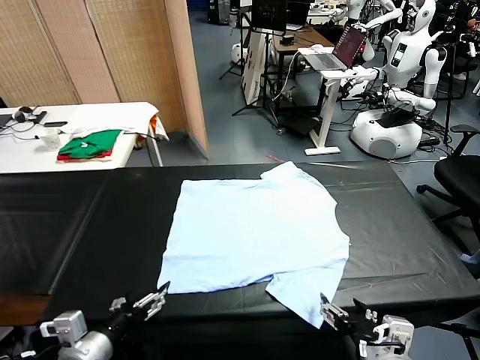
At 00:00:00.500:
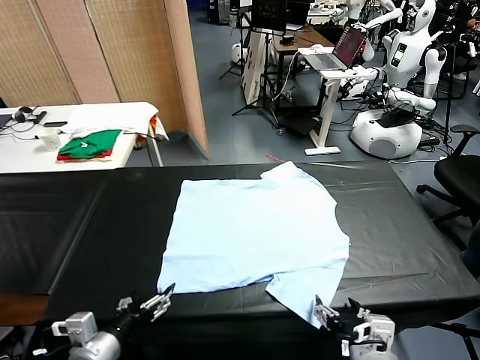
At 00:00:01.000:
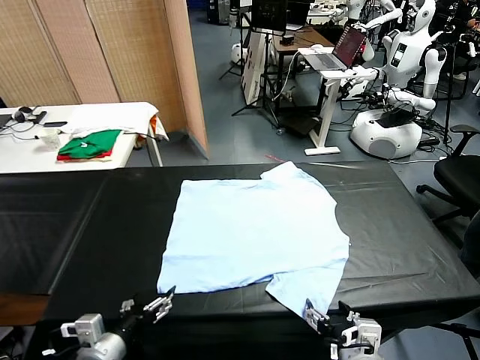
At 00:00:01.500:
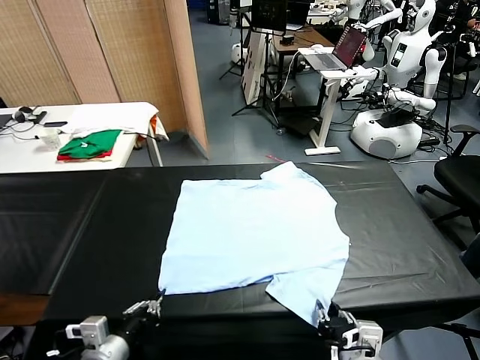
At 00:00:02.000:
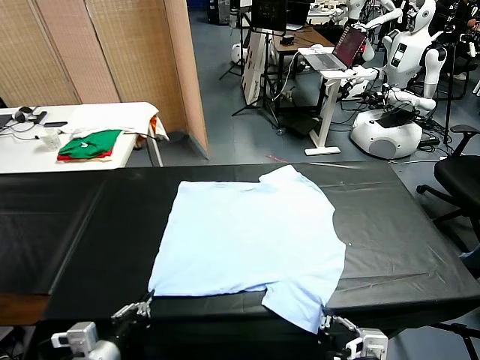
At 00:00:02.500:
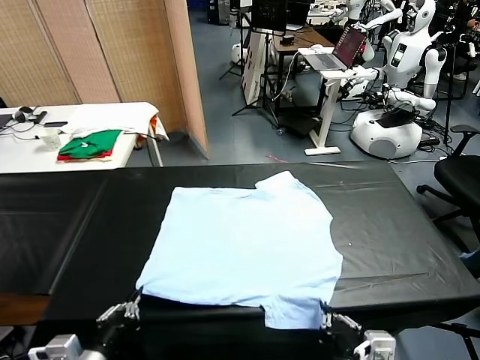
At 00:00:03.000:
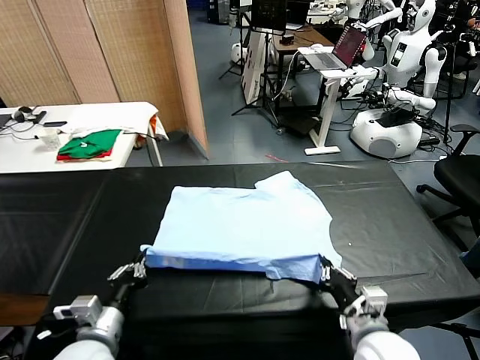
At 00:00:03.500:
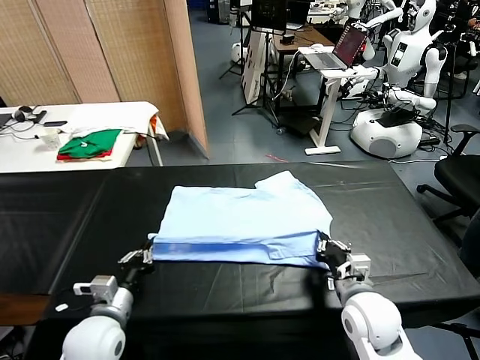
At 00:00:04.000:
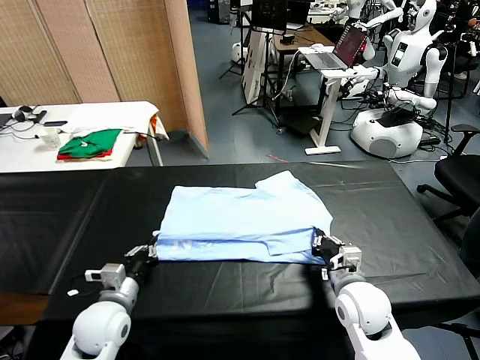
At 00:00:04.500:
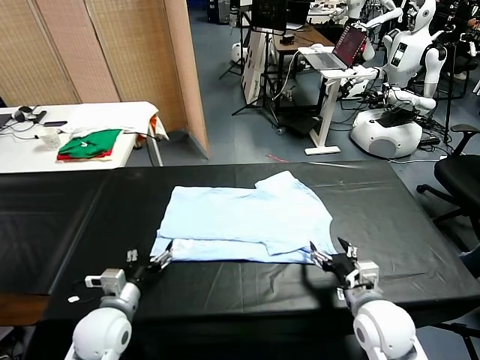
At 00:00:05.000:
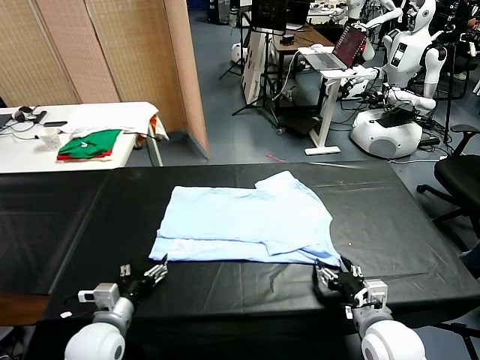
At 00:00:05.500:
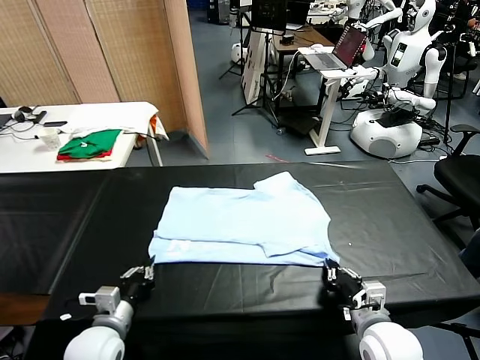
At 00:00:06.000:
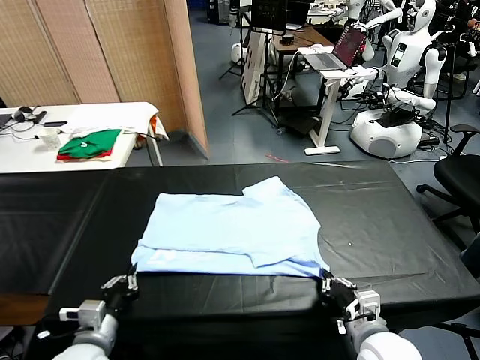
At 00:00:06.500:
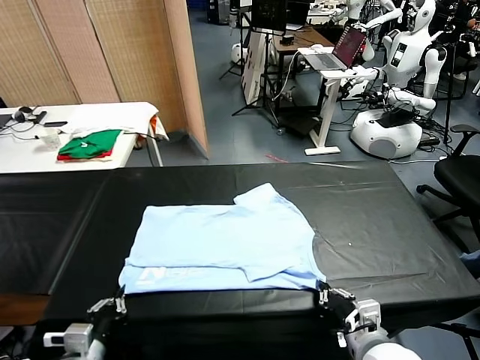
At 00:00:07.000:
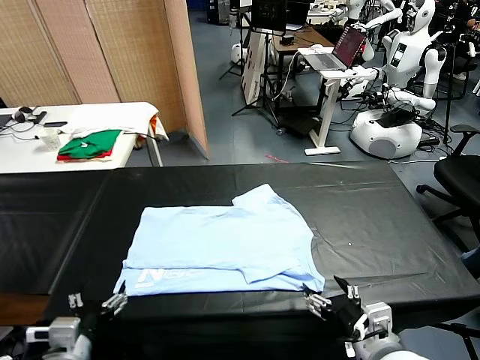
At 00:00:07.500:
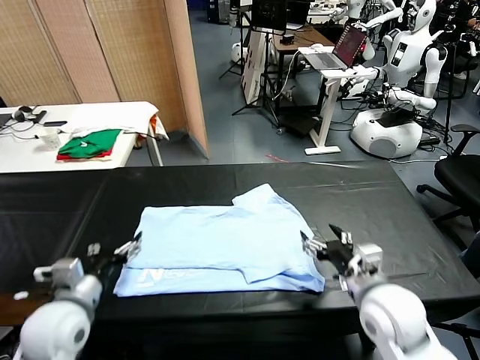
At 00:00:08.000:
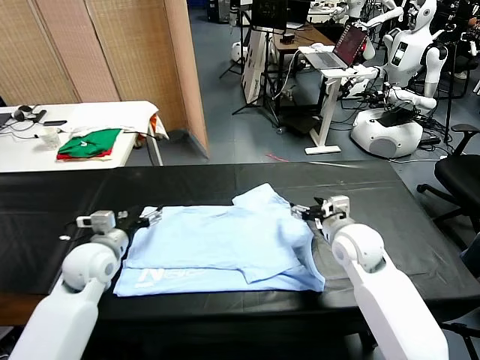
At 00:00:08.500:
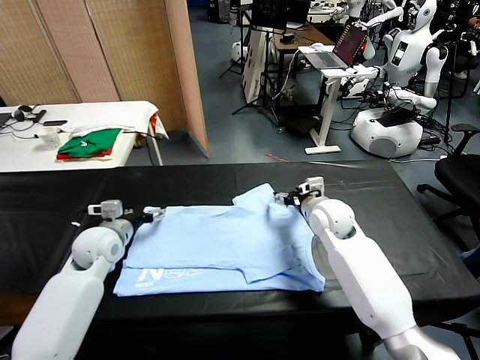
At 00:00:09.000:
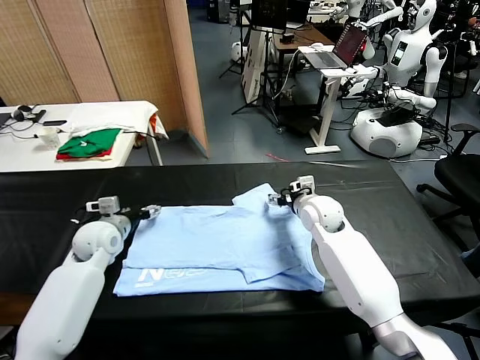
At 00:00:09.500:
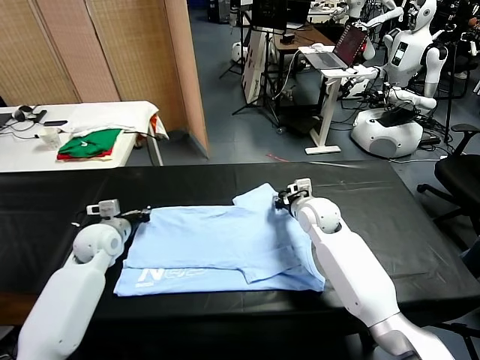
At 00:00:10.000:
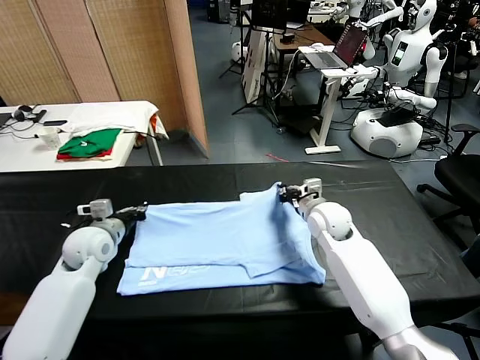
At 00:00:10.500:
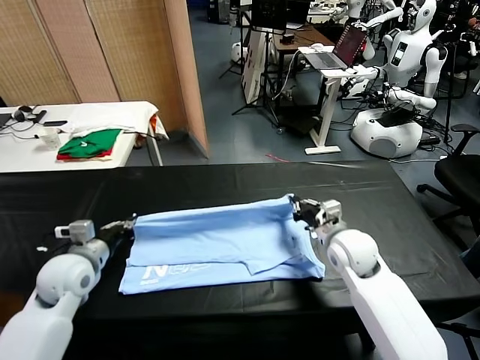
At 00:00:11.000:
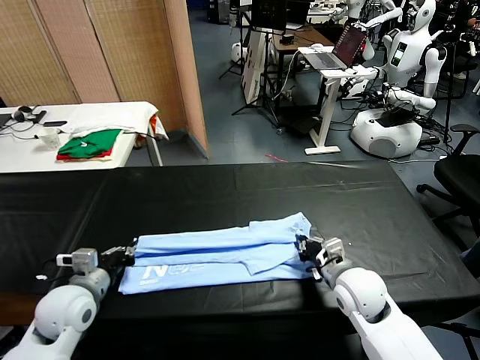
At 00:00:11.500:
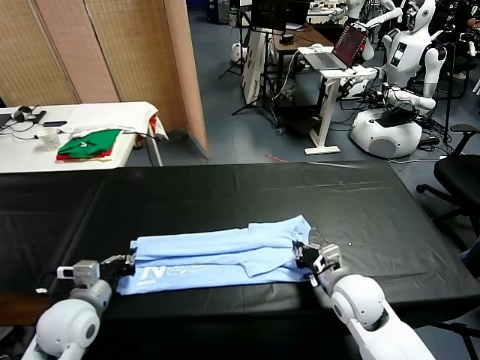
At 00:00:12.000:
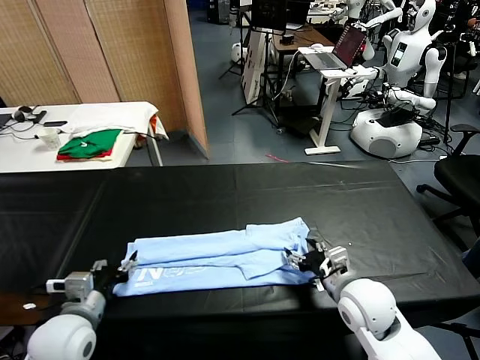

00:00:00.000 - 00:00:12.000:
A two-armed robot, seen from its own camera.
Task of the whole recording: fold and organize the clothes.
Step, 00:00:00.000 - 00:00:01.500: use both grippers simultaneously to clamp the lower edge of the clothing fabric.
Step, 00:00:02.000 - 00:00:04.000: use both grippers to drag the lower edge of the fabric forward and fold it over the upper edge.
Step, 00:00:04.500 - 00:00:06.500: Drag the clothes downward with both gripper.
Step, 00:00:07.000 - 00:00:09.500: use both grippers simultaneously to clamp the upper edge of the clothing fabric.
Step, 00:00:10.000 - 00:00:11.500: use both grippers to drag the upper edge of the fabric backward and fold it over the lower edge.
00:00:02.000 - 00:00:04.000: The two grippers go some 15 cm forward. The right gripper opens up.
00:00:04.000 - 00:00:06.000: The grippers both shift backward by about 10 cm. The right gripper closes, while the left gripper opens and closes again.
00:00:06.000 - 00:00:08.000: The grippers both shift forward by approximately 20 cm. The right gripper opens up, while the left gripper opens its fingers.
00:00:08.000 - 00:00:10.000: The left gripper closes its fingers, while the right gripper closes up.
00:00:10.000 - 00:00:12.000: The grippers both shift backward by some 20 cm. The left gripper opens its fingers. The right gripper opens.

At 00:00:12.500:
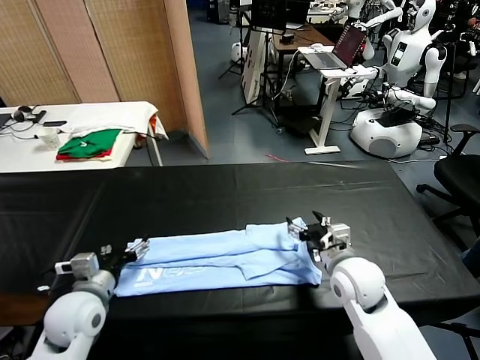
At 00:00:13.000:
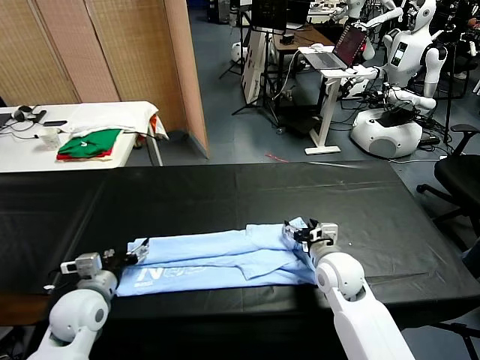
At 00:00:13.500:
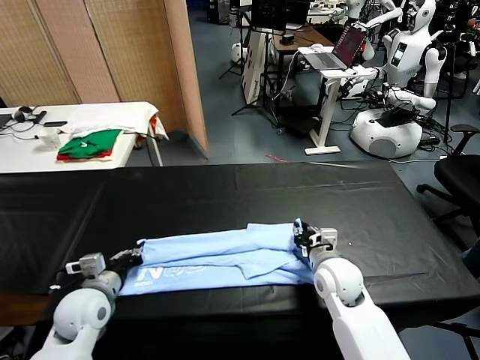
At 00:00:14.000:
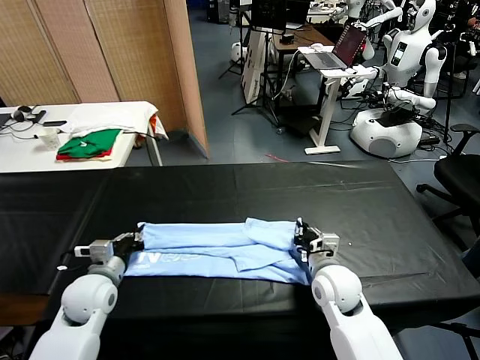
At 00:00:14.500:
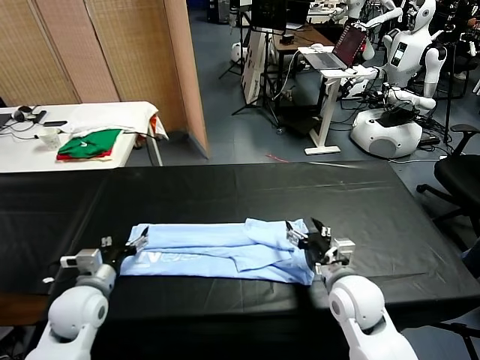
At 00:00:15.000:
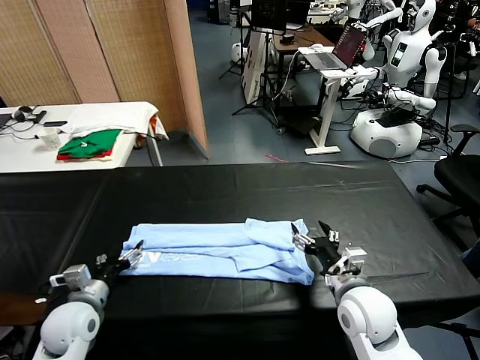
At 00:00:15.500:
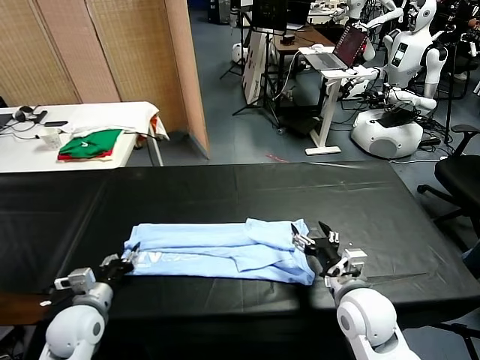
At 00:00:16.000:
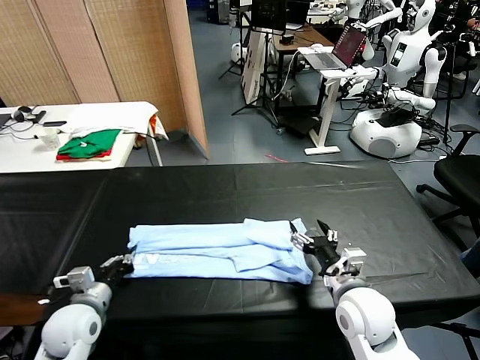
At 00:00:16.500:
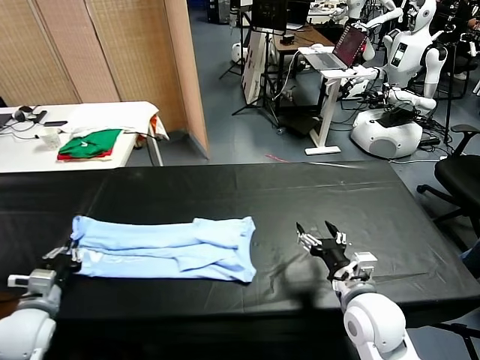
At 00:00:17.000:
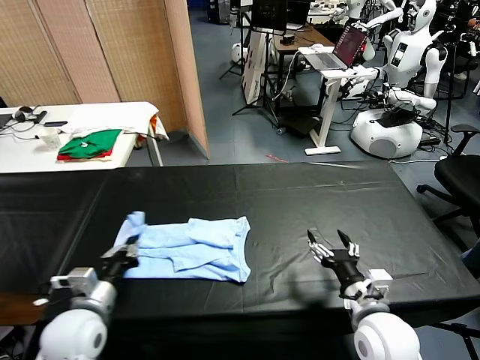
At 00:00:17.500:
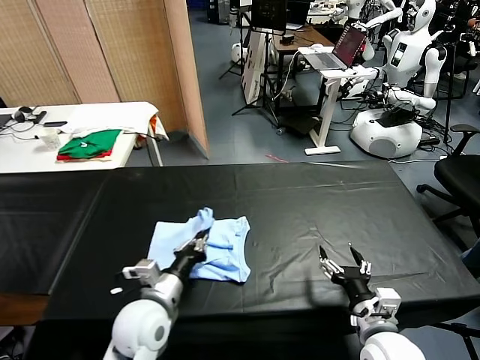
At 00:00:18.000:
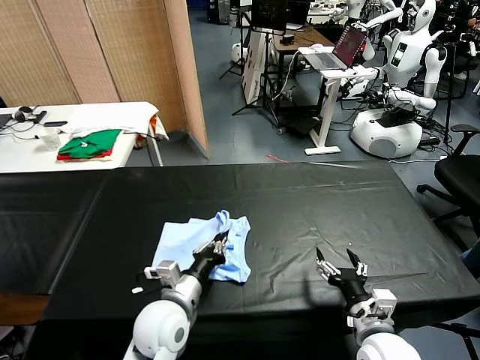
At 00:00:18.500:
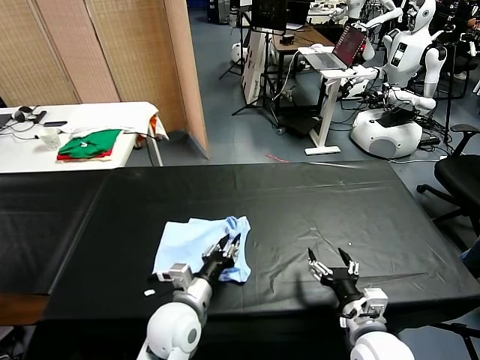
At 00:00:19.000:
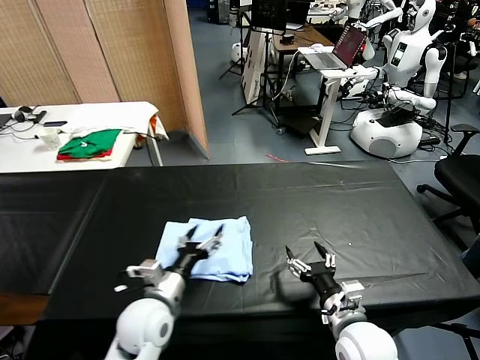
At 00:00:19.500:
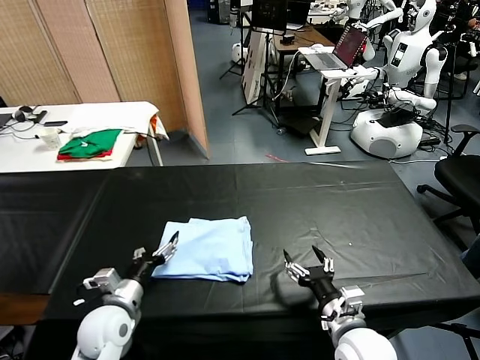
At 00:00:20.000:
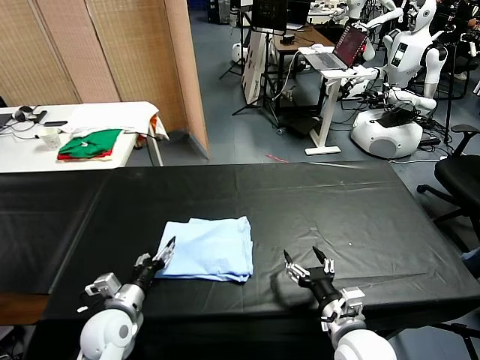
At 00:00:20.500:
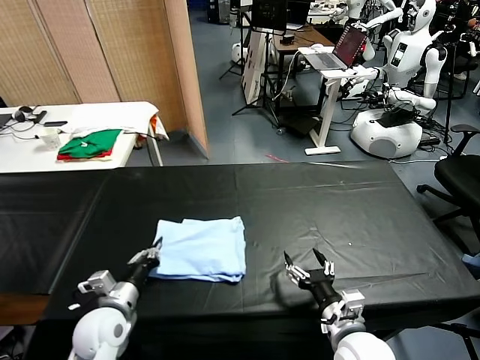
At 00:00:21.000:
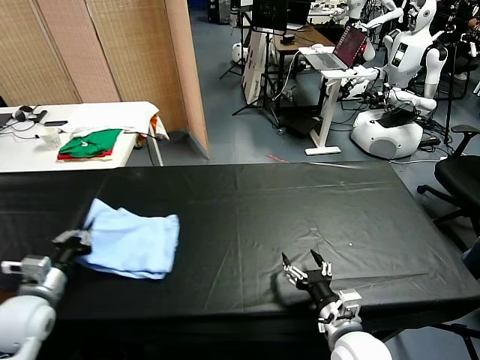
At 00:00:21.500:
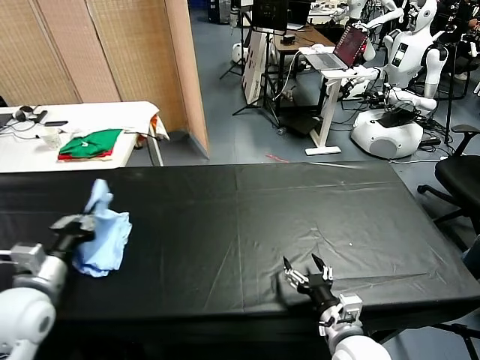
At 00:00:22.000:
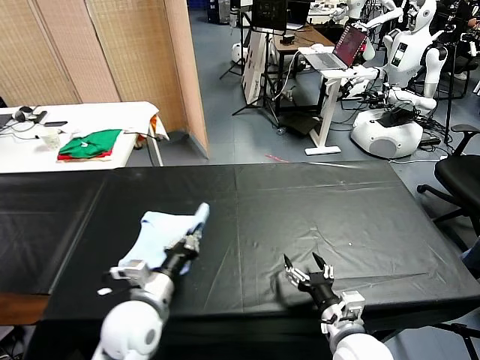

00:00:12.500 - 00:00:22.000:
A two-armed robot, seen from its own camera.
Task of the whole recording: fold and organize the clothes.
Step, 00:00:12.500 - 00:00:15.500: use the left gripper to clamp the left edge of the fabric.
Step, 00:00:16.000 - 00:00:18.500: use the left gripper to drag the left edge of the fabric to the left and folds it over the right edge.
00:00:12.500 - 00:00:14.500: The left gripper closes, then reopens. The right gripper shifts roughly 5 cm backward, and closes and opens again.
00:00:14.500 - 00:00:16.500: The left gripper goes roughly 10 cm to the left, and closes up.
00:00:16.500 - 00:00:18.000: The right gripper heads backward, covering about 5 cm. The left gripper moves to the right, roughly 25 cm.
00:00:18.000 - 00:00:20.000: The left gripper heads to the left and downward, covering approximately 15 cm, and opens.
00:00:20.000 - 00:00:22.000: The left gripper is displaced upward and to the right by about 10 cm, and closes.

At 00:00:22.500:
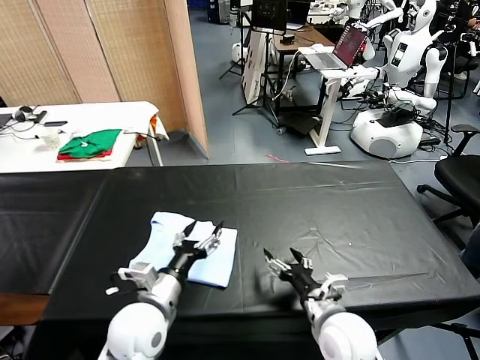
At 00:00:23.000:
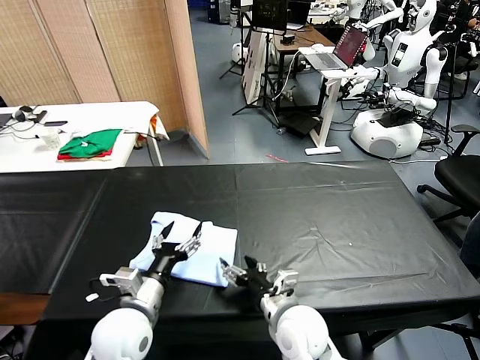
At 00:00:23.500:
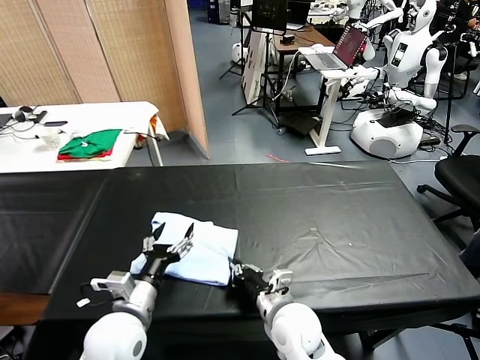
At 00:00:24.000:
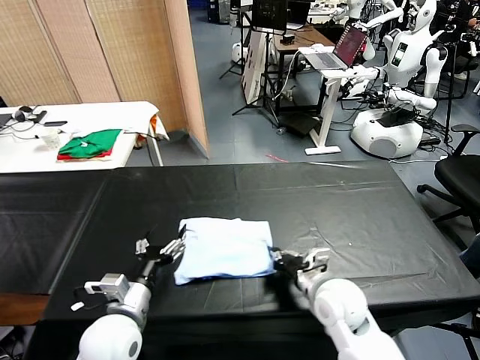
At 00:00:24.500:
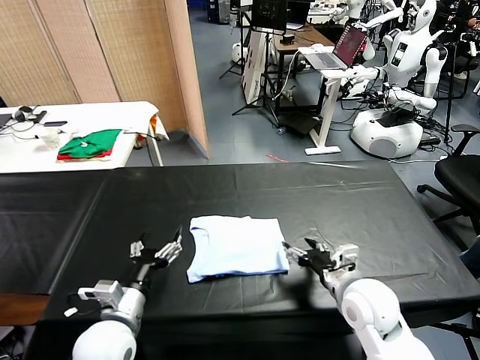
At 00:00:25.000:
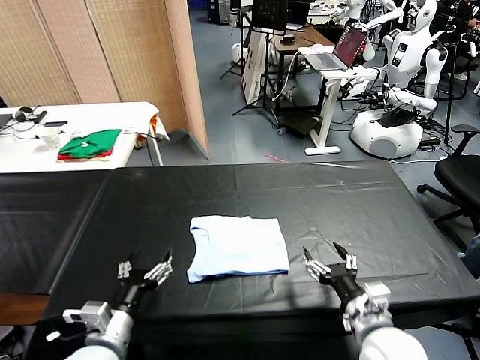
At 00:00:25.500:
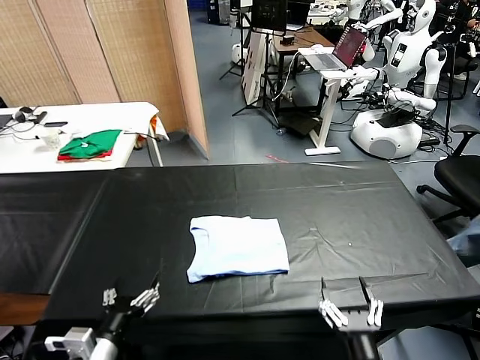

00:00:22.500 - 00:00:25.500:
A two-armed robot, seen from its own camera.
Task of the whole recording: fold and organize the clothes.
Step, 00:00:22.500 - 00:00:24.000: Drag the clothes to the center of the table.
00:00:22.500 - 00:00:24.000: The left gripper heads to the left, covering approximately 5 cm. The right gripper moves forward, about 5 cm, travels to the left and back again, some 10 cm each way, and closes up.
00:00:24.000 - 00:00:25.500: The left gripper is displaced backward by roughly 10 cm. Meanwhile the right gripper is displaced backward by about 20 cm, and opens.
